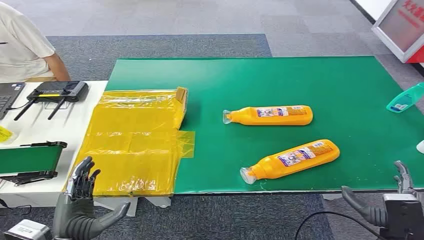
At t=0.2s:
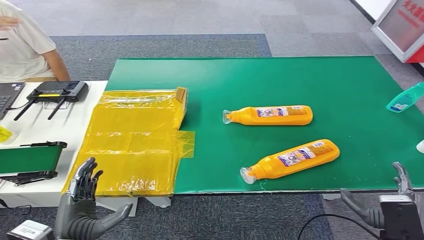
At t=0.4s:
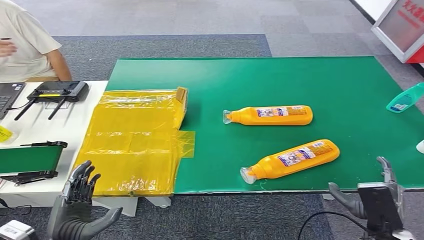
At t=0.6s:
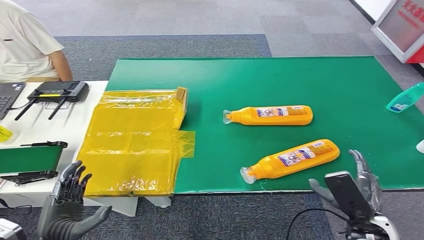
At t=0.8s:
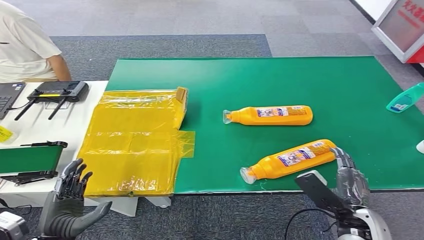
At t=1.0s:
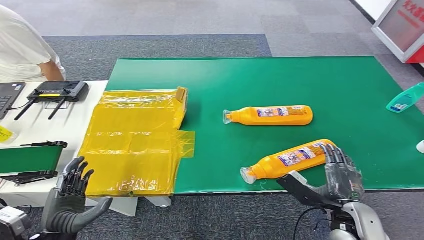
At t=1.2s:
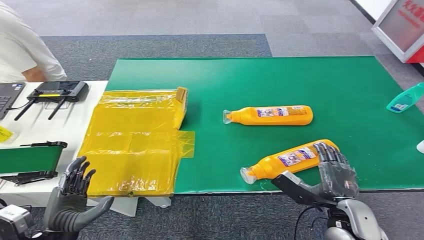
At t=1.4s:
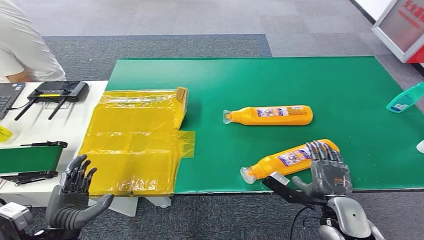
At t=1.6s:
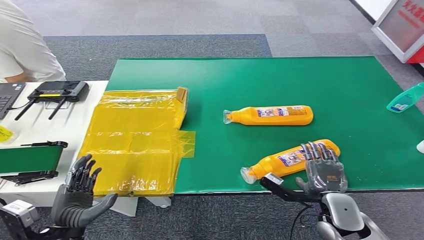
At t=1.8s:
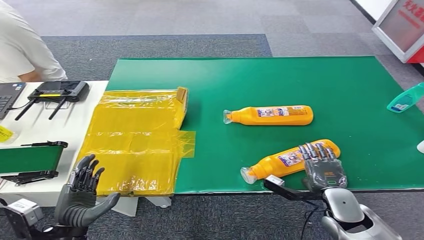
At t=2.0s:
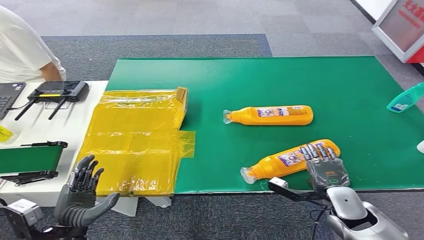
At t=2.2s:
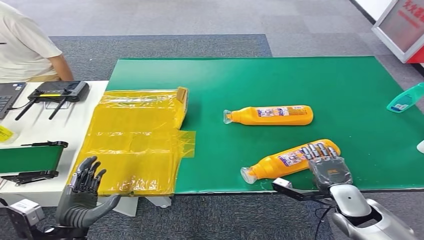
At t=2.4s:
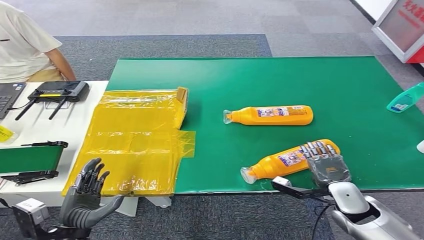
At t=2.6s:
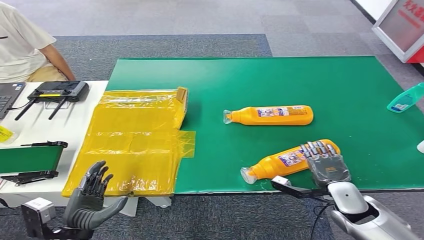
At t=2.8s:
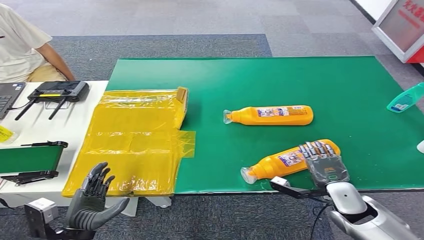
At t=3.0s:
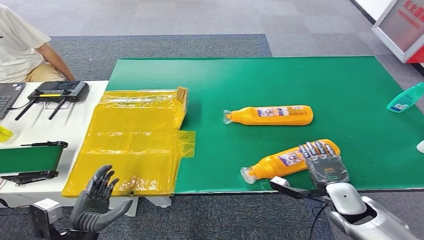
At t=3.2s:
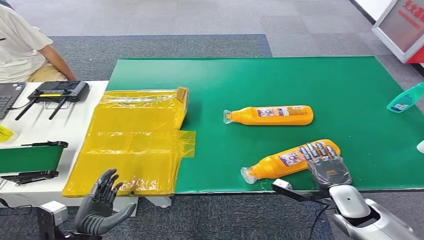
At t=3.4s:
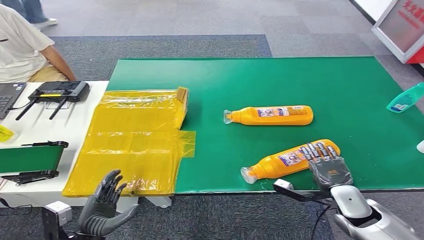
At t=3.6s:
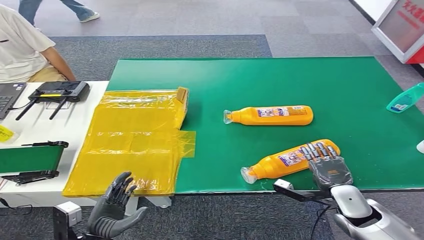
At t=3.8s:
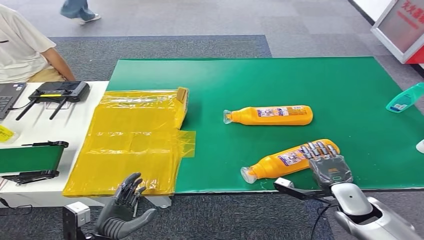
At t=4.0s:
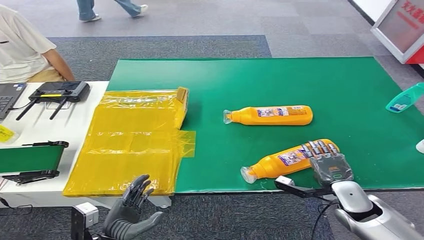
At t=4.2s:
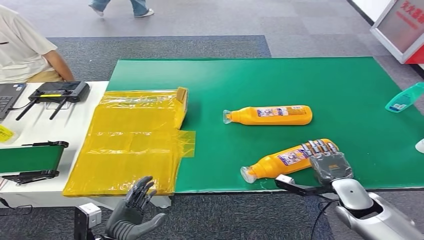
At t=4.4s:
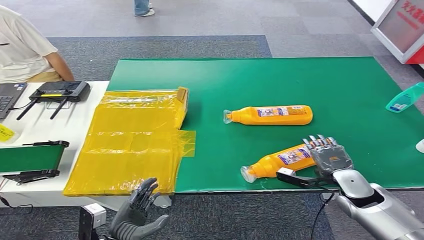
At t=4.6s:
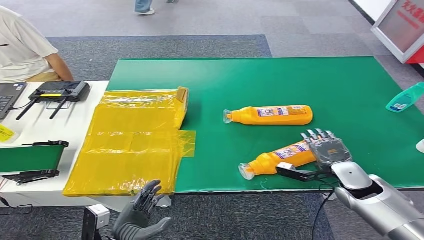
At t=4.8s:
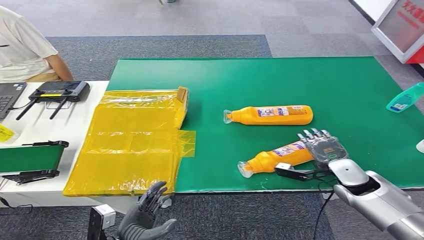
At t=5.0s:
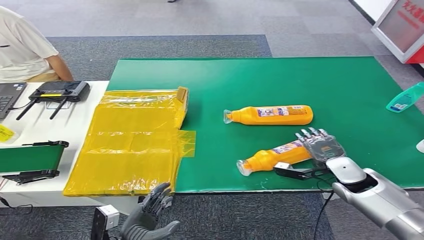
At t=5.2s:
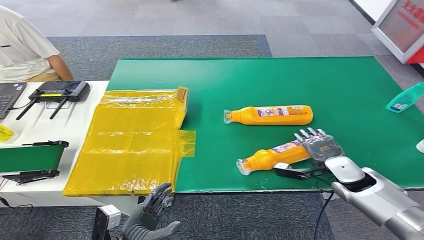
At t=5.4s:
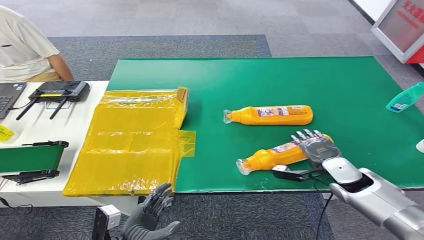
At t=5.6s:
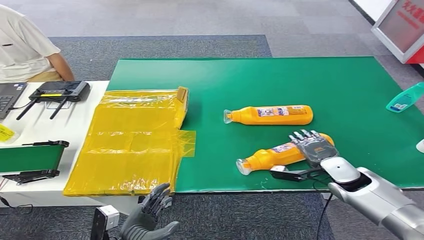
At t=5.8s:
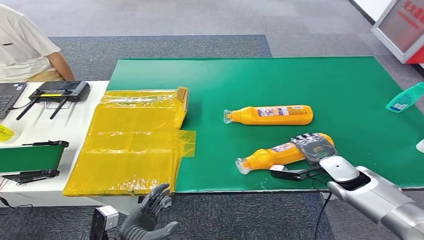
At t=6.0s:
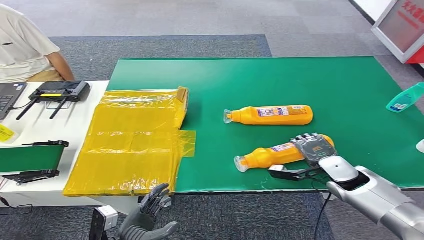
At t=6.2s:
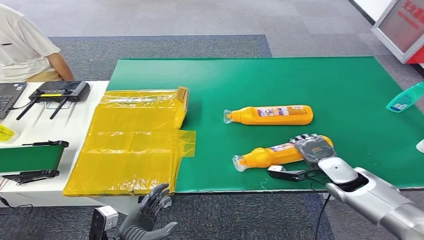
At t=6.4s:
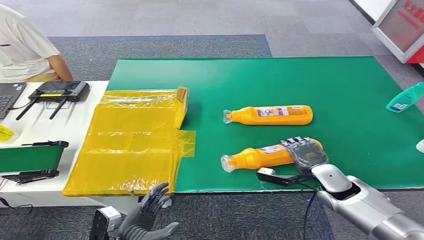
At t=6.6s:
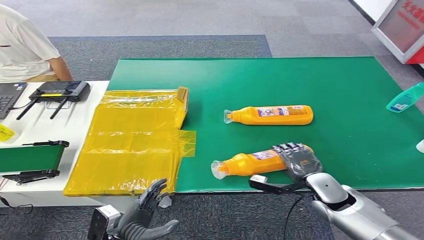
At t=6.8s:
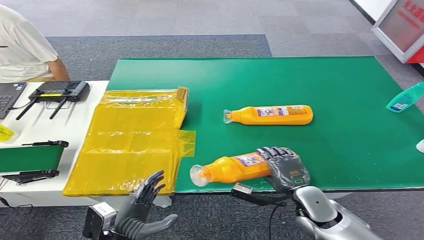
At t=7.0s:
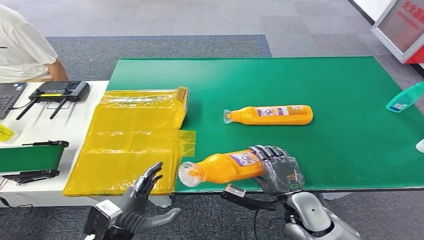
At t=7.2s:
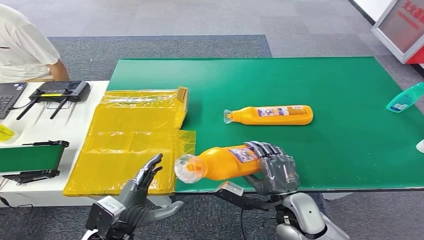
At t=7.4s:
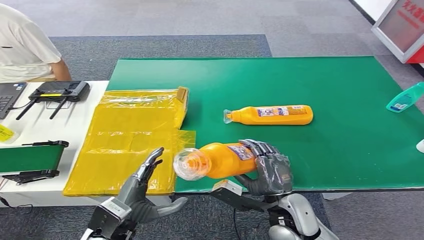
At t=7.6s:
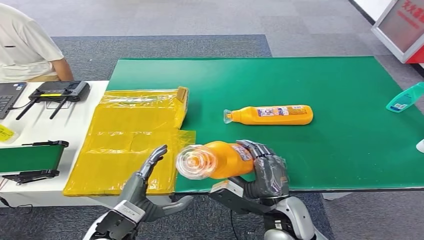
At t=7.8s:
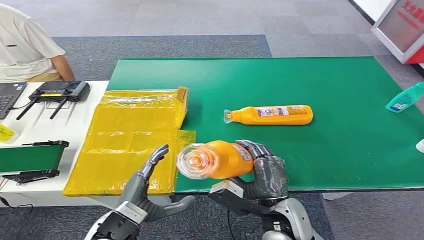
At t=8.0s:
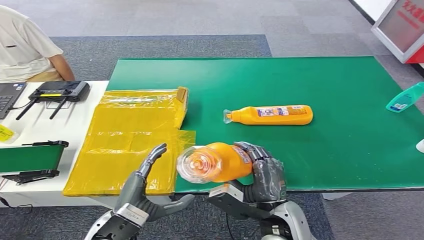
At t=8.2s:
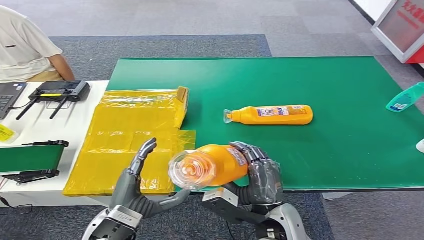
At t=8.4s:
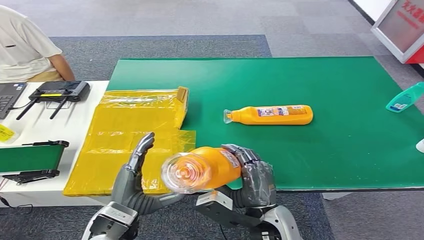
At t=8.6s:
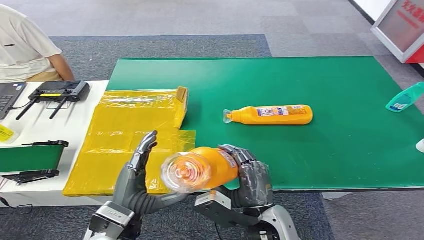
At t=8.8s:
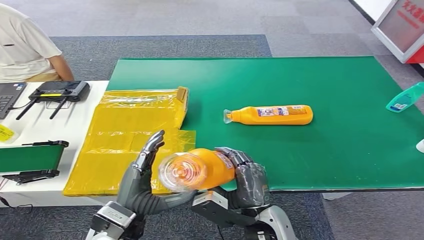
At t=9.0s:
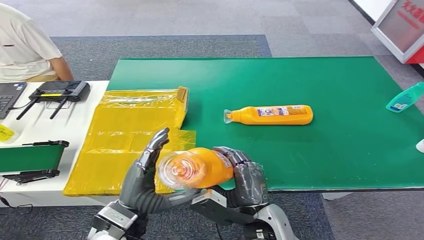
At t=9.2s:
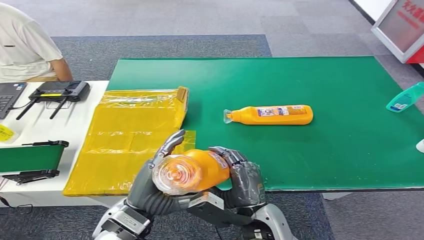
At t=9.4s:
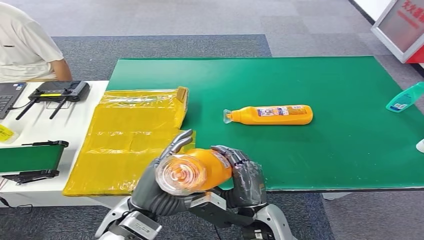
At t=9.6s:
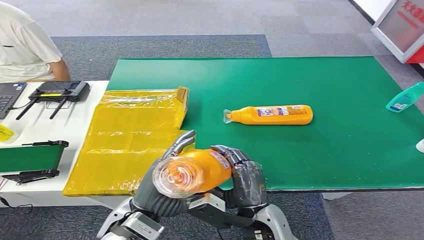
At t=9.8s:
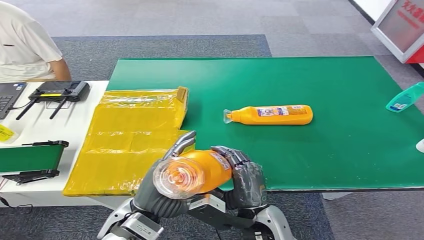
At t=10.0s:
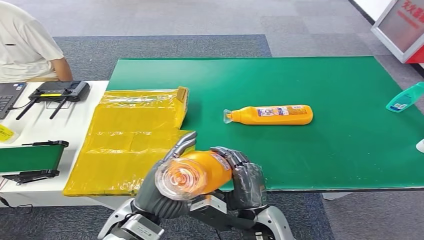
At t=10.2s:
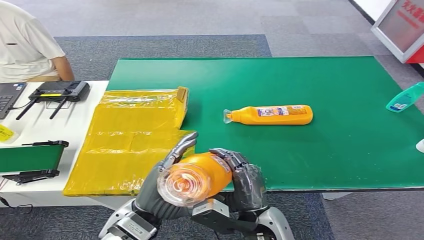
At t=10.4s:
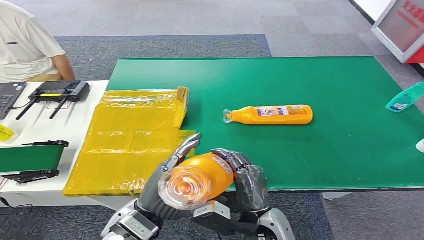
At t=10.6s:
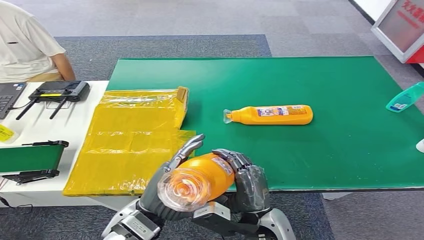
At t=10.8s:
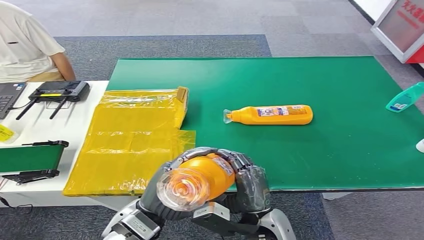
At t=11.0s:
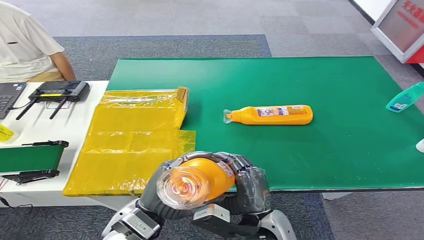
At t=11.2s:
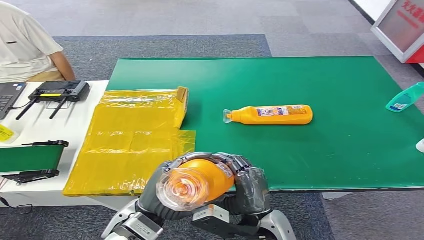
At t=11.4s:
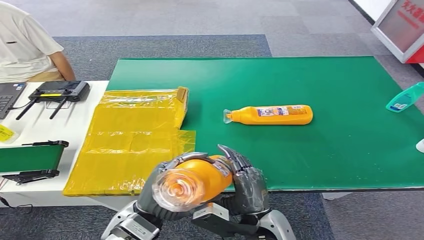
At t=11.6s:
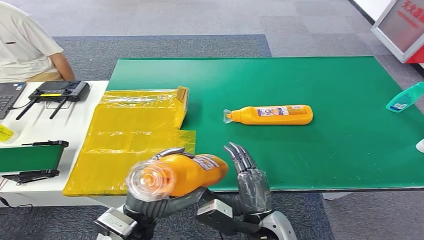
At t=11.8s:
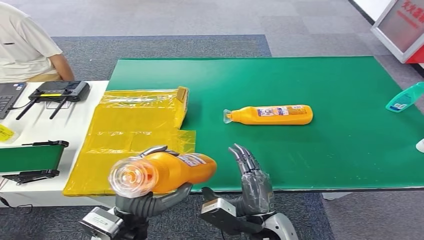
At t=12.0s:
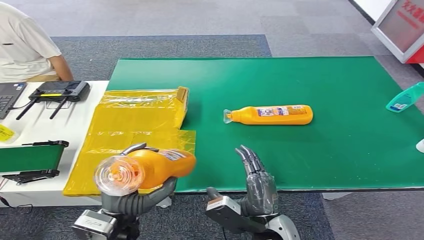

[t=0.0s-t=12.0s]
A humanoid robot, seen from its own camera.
Step, t=0.0s to t=7.6s: Pick up the bottle from the table.
t=1.6s to t=3.0s: The right hand moves some 5 cm.
t=3.0s to t=4.4s: The left hand is displaced to the right by some 5 cm.
t=4.4s to t=6.0s: The right hand moves about 5 cm.
t=6.0s to t=7.6s: The left hand is displaced upward and forward by approximately 10 cm, while the right hand heads to the left and backward, covering some 20 cm.
t=7.6s to t=9.0s: The left hand changes place by roughly 5 cm.
t=9.0s to t=10.4s: The hands make only small movements.

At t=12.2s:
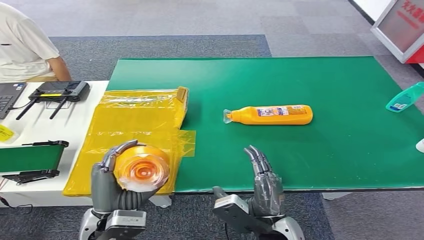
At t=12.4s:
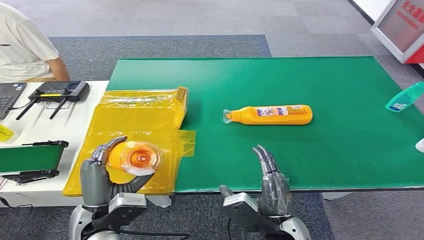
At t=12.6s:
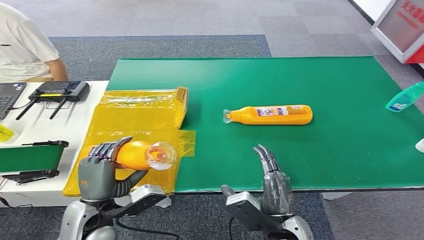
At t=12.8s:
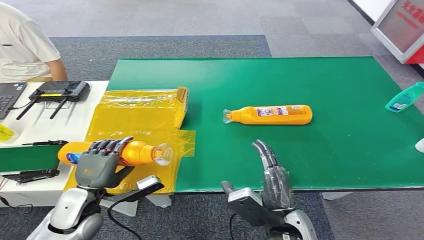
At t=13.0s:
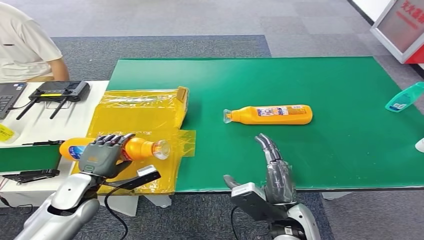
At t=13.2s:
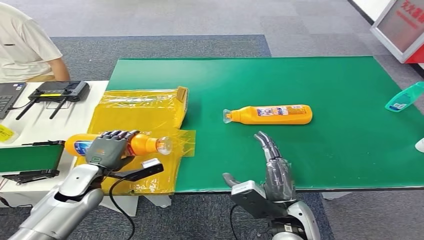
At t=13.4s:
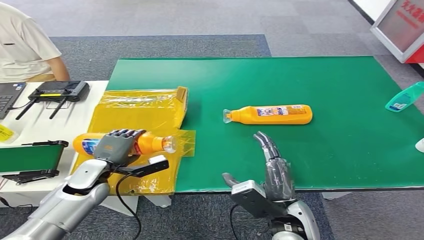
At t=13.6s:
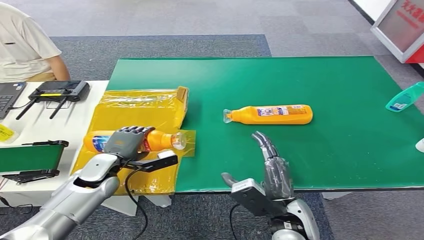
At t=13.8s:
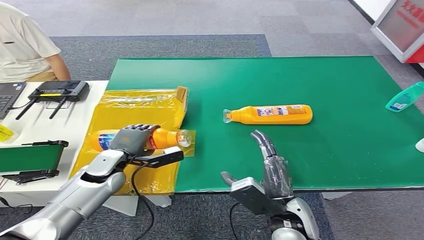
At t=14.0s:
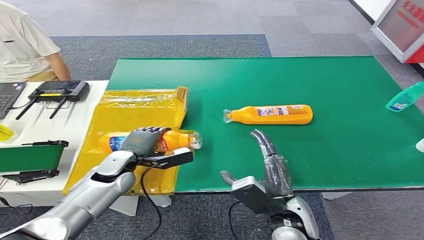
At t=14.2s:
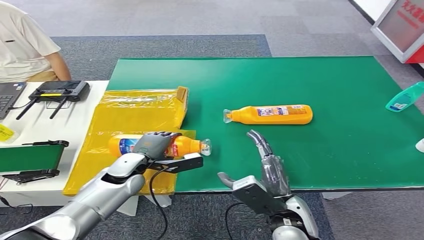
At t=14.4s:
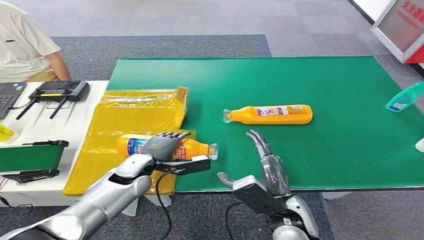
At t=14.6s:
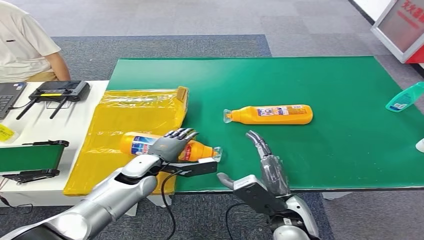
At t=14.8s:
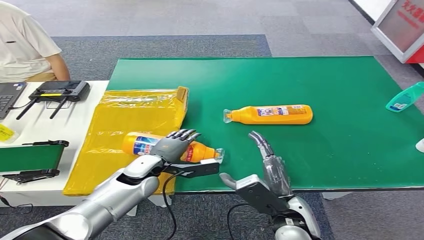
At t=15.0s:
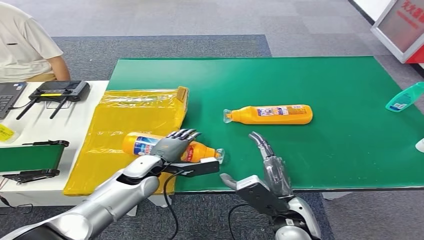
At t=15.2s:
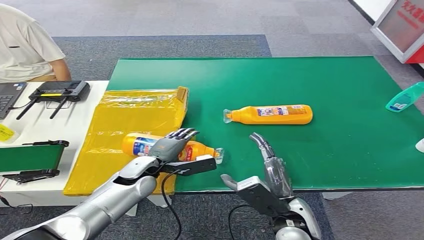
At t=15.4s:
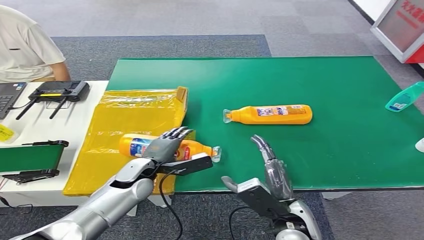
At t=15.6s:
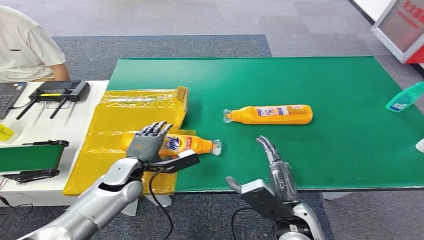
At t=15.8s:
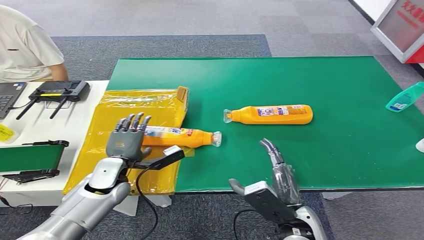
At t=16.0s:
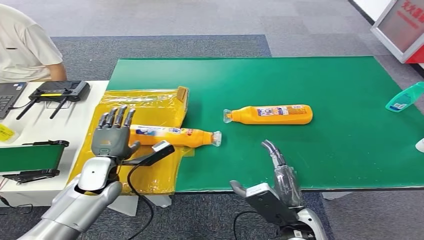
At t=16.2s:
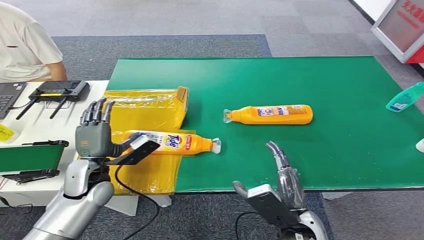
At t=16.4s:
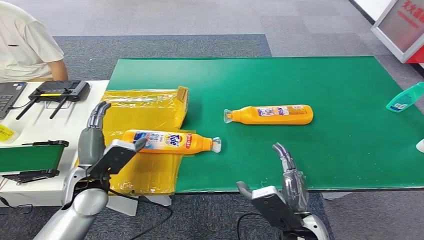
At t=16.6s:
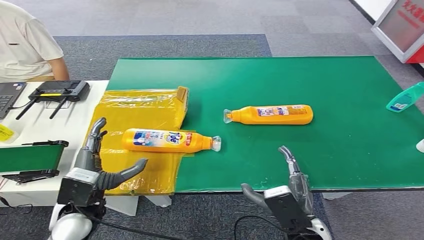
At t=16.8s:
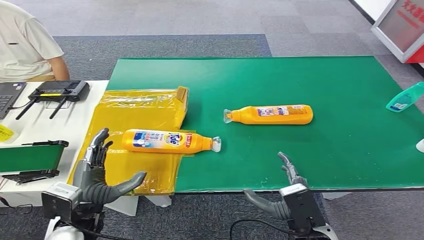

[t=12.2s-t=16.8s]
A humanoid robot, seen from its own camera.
Step, t=12.2s to t=16.8s: Turn the bottle to the front side.
t=12.2s to t=13.8s: The right hand ends up some 5 cm from where it was, while the left hand is displaced forward by about 15 cm.
t=13.8s to t=15.2s: The left hand heads to the right, covering roughly 10 cm.
t=15.2s to t=16.8s: The left hand goes about 15 cm backward and to the left; the right hand moves backward, roughly 5 cm.
